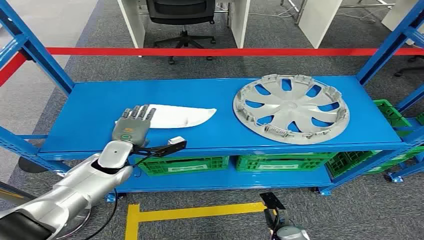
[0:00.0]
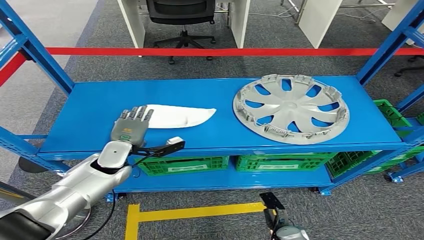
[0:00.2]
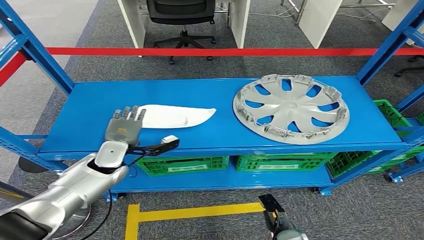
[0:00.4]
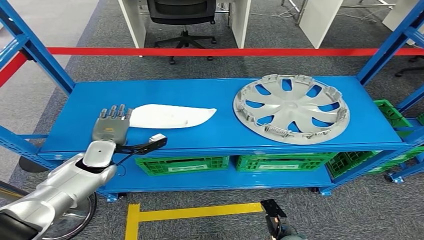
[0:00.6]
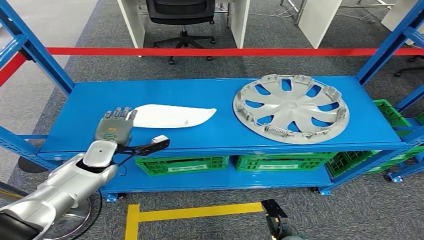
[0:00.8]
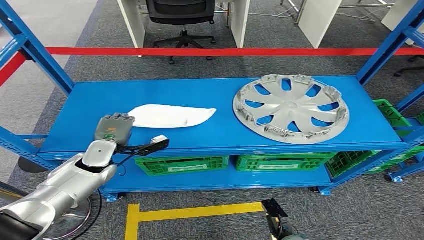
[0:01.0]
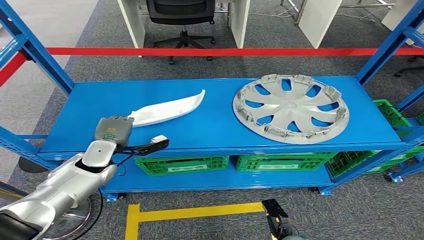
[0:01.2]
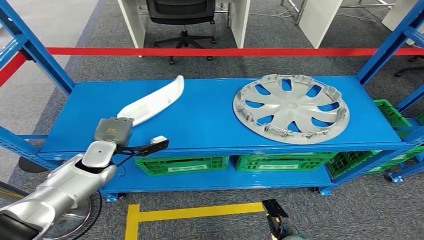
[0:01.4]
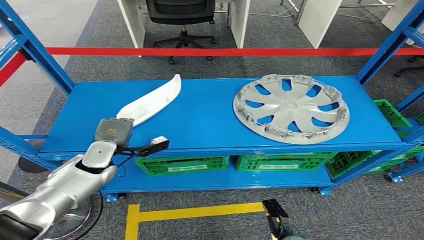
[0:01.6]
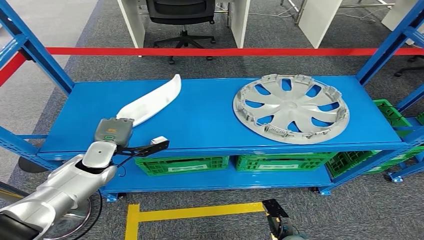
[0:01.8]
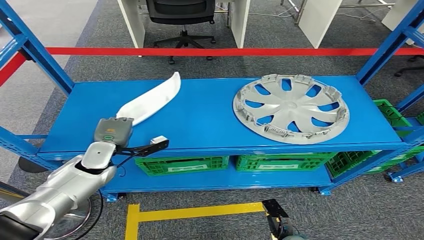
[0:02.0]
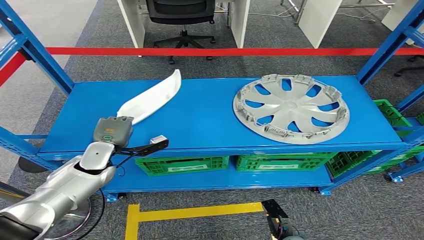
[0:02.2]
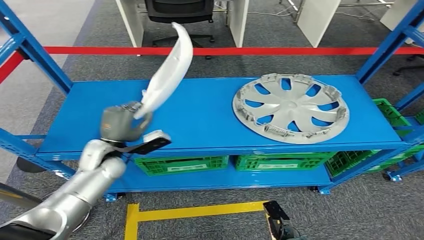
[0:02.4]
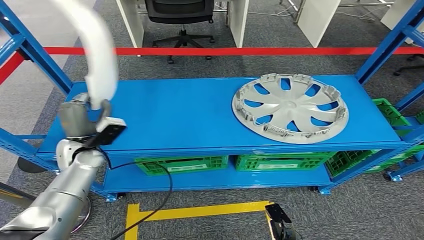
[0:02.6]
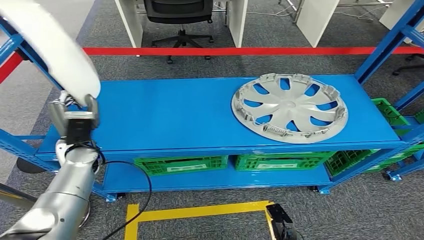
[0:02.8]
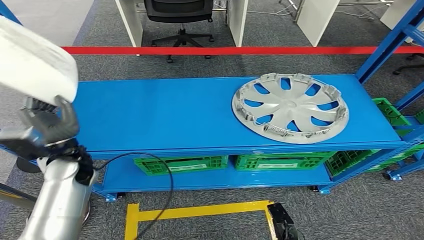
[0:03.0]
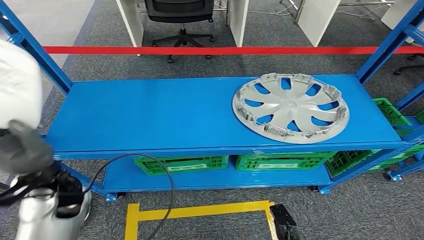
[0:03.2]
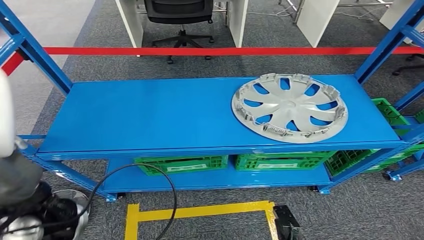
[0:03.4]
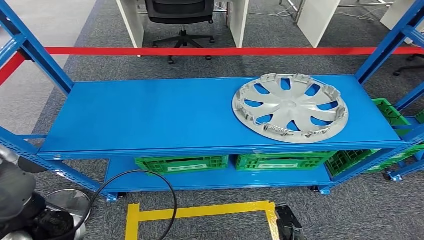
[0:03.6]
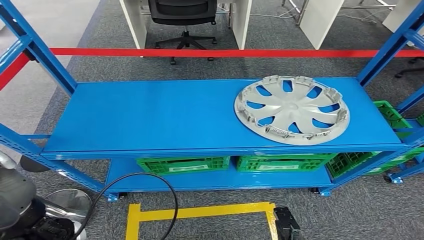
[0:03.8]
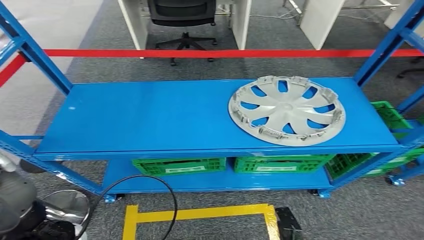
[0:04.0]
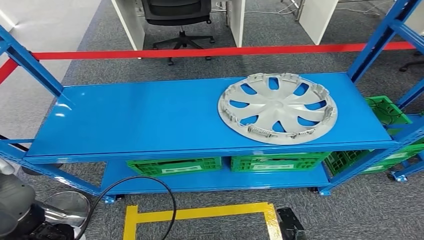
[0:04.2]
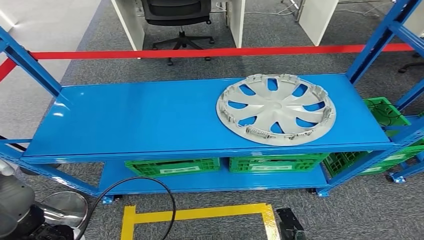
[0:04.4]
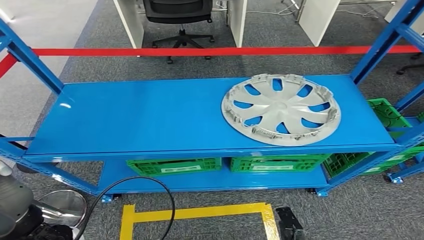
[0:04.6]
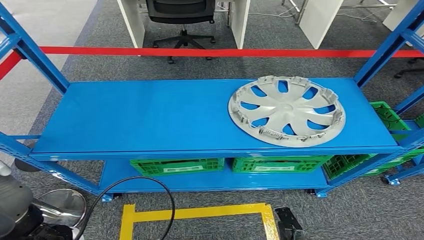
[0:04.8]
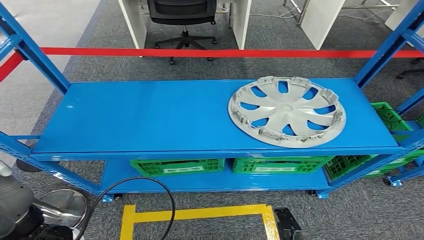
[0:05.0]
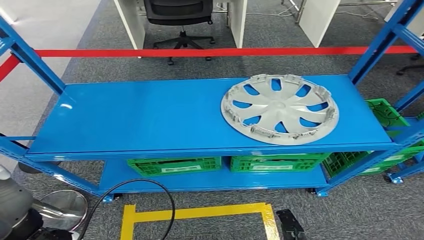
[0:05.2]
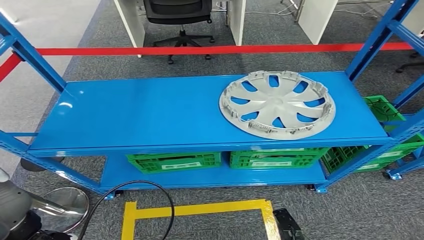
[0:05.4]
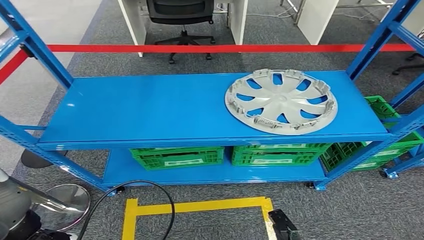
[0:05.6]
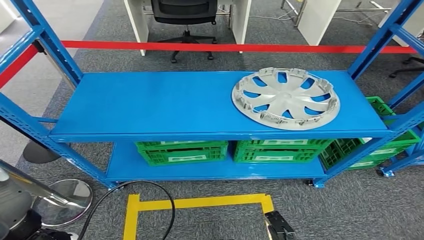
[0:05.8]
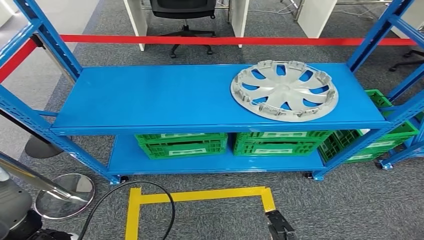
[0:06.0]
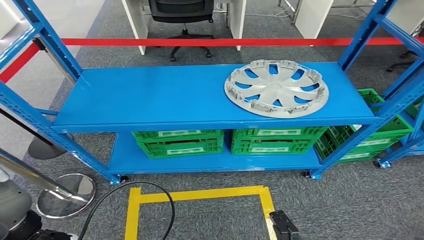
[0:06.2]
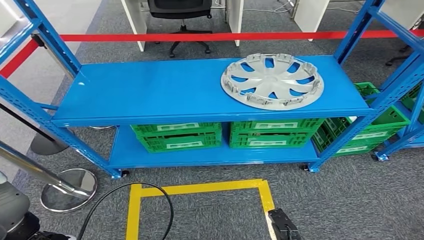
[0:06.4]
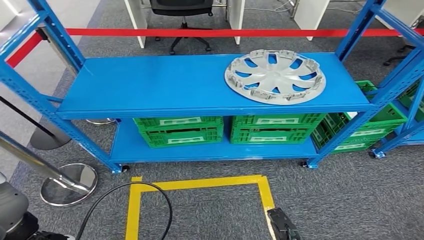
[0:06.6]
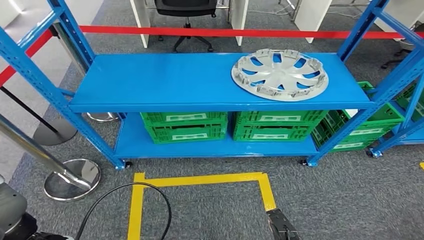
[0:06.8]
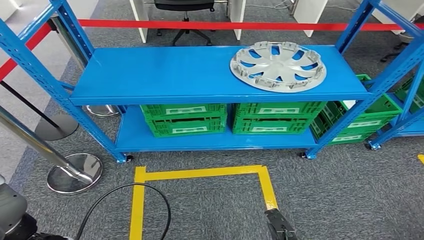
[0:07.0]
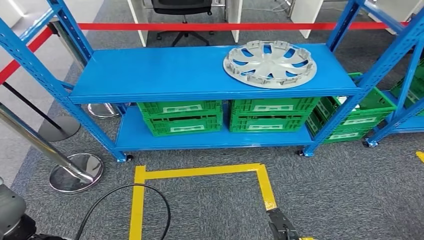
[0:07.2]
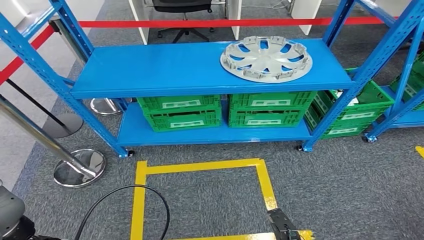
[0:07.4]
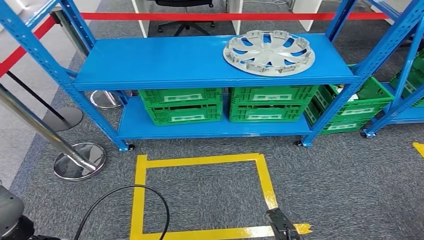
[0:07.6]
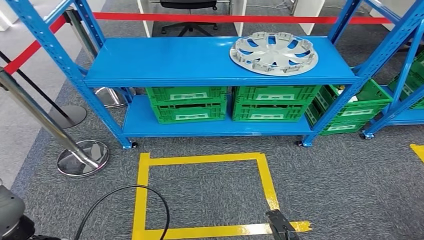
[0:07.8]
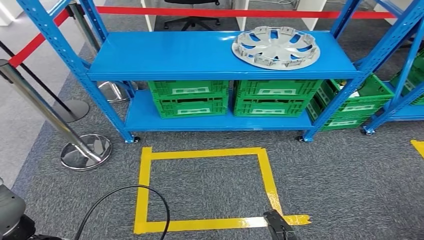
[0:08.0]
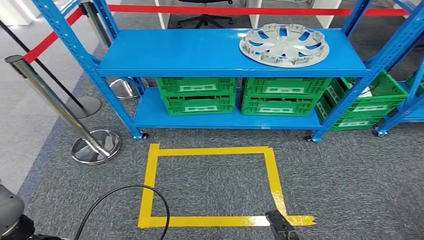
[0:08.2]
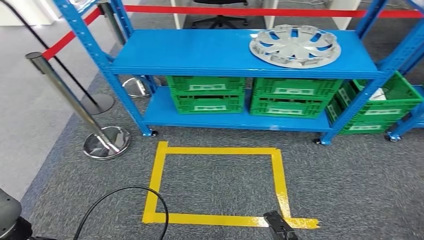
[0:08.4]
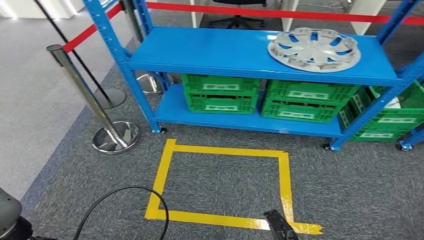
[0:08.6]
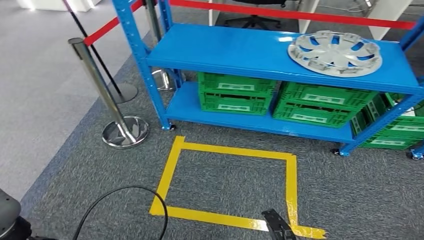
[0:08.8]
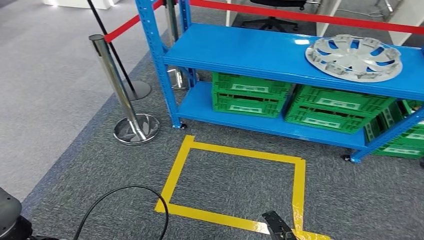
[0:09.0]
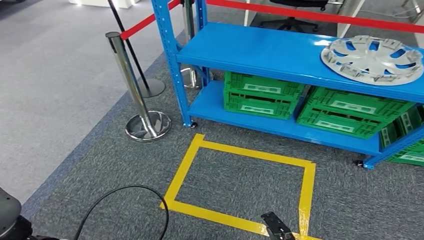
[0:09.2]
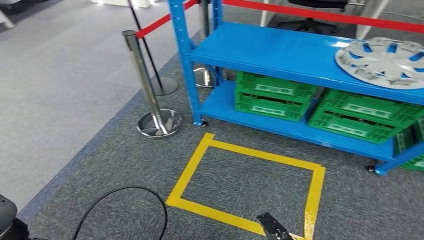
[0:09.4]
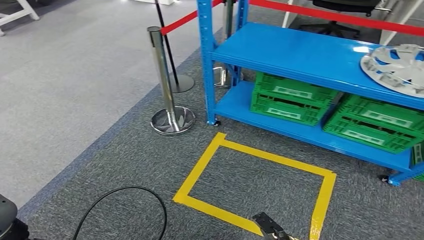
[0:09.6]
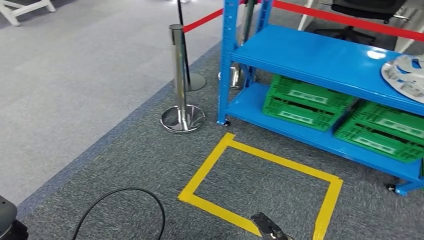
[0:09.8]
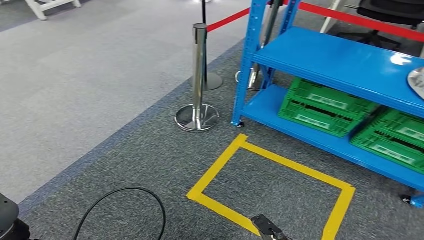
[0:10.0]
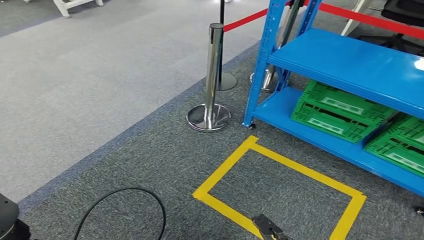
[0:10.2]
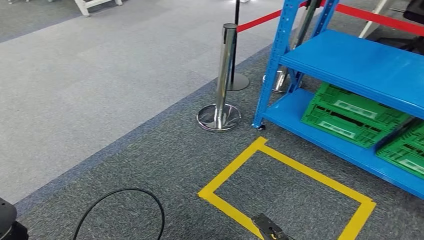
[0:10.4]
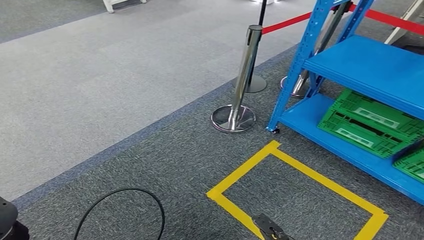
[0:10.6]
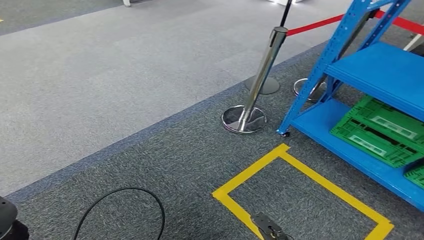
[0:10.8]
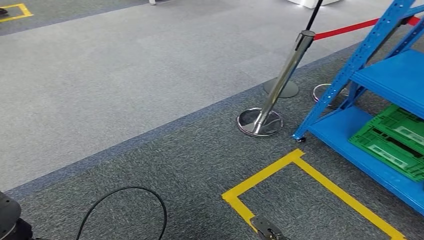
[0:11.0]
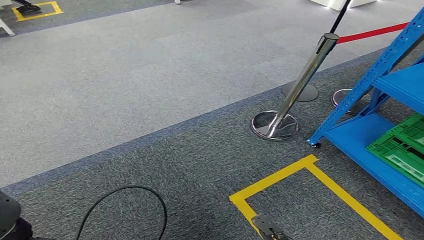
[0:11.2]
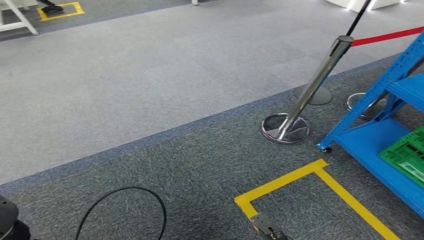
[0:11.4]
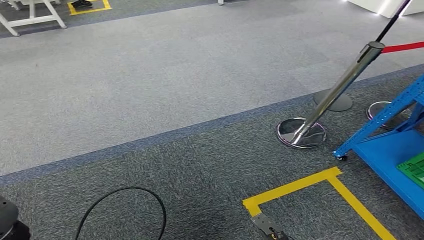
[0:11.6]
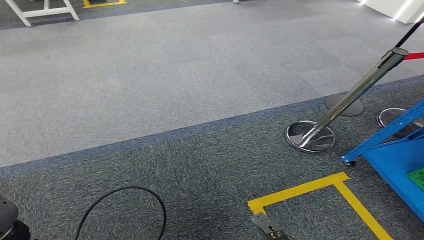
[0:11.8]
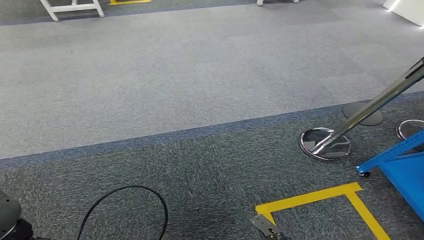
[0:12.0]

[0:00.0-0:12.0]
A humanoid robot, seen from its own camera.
Step, 0:00.0 to 0:03.0: Pick up the small component from the shelf.

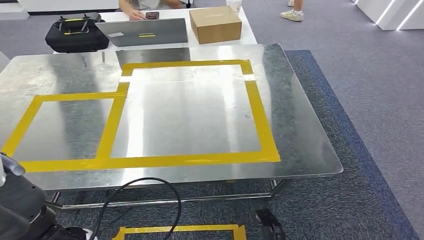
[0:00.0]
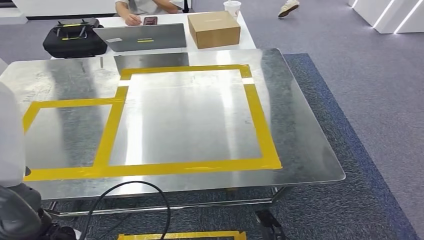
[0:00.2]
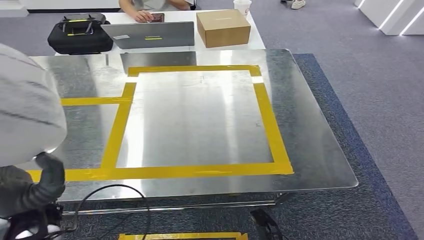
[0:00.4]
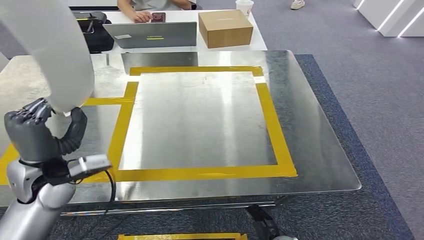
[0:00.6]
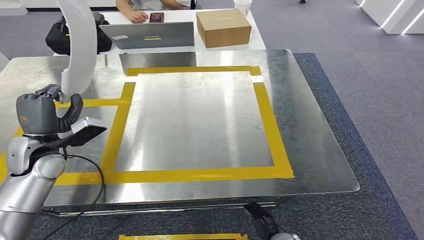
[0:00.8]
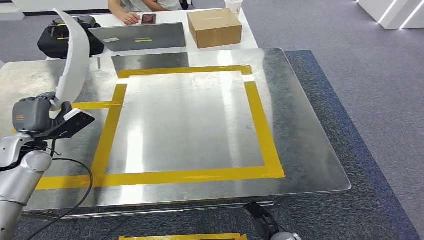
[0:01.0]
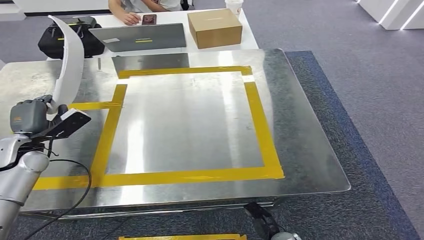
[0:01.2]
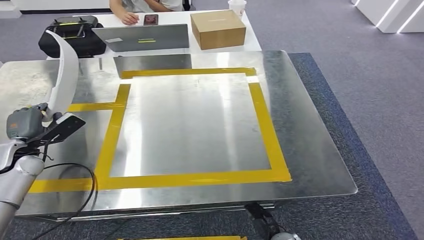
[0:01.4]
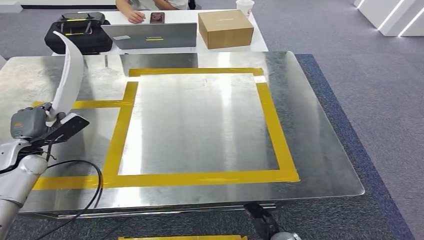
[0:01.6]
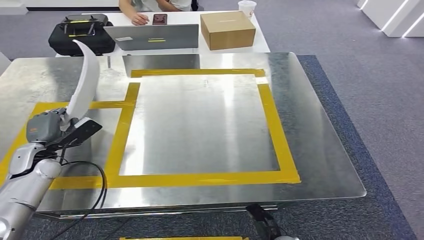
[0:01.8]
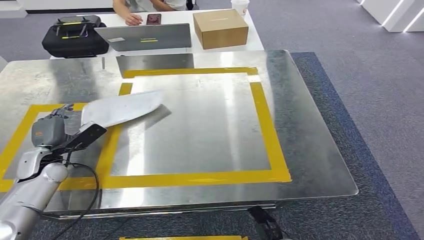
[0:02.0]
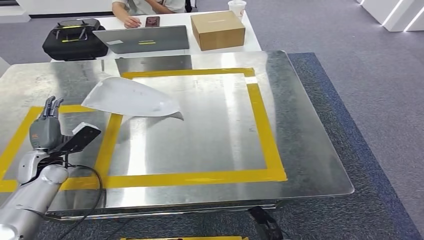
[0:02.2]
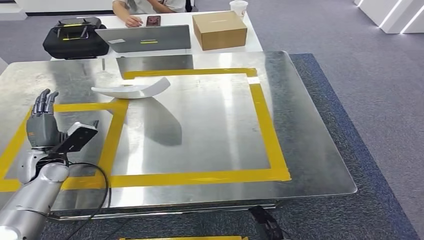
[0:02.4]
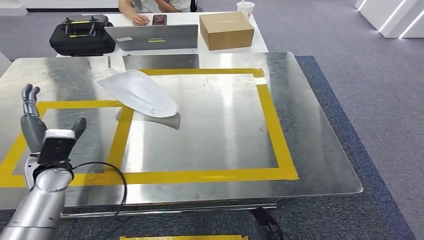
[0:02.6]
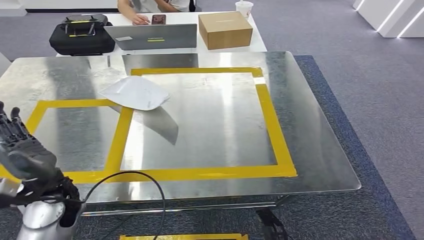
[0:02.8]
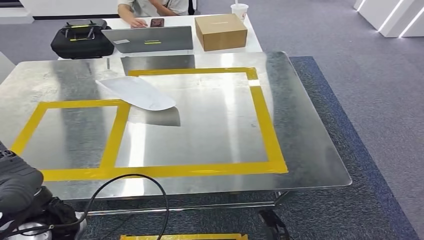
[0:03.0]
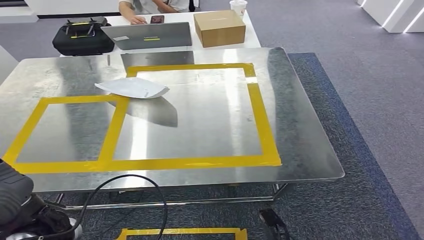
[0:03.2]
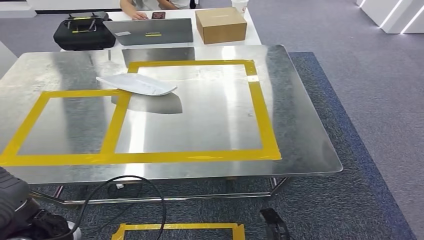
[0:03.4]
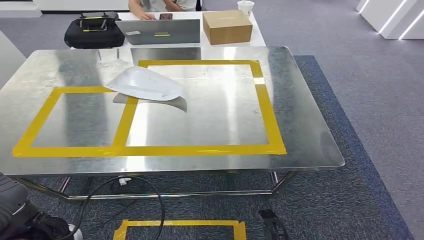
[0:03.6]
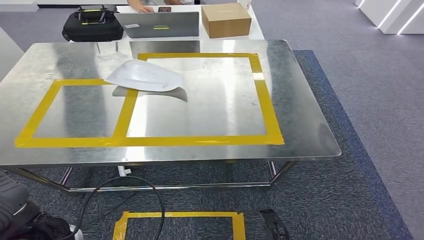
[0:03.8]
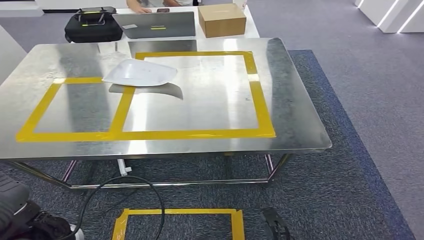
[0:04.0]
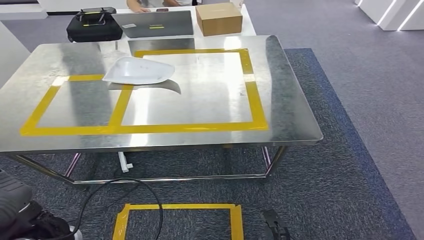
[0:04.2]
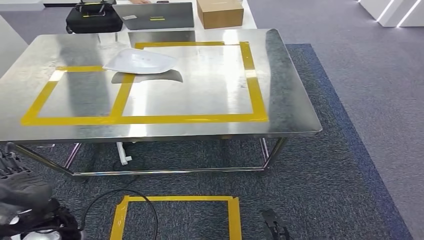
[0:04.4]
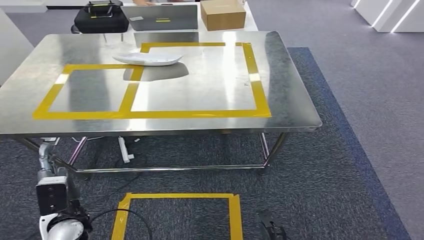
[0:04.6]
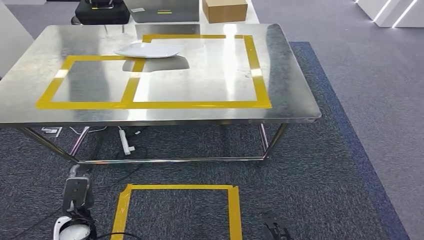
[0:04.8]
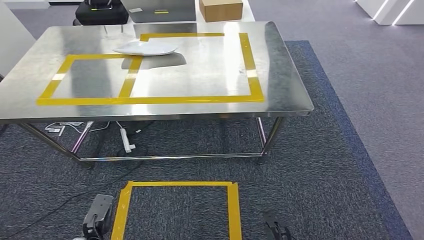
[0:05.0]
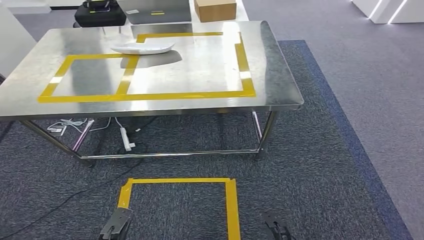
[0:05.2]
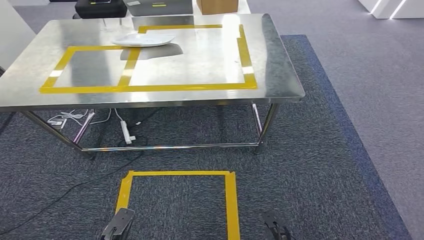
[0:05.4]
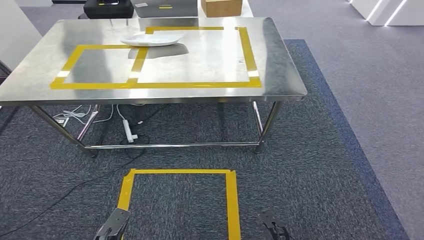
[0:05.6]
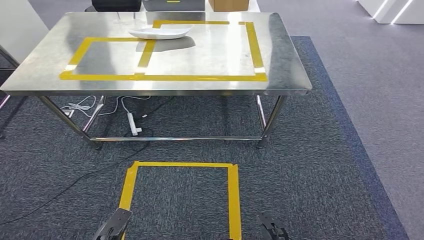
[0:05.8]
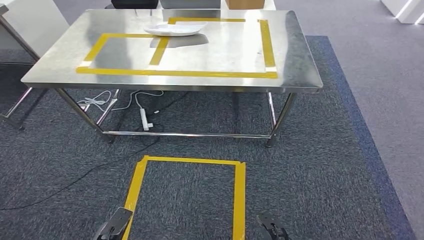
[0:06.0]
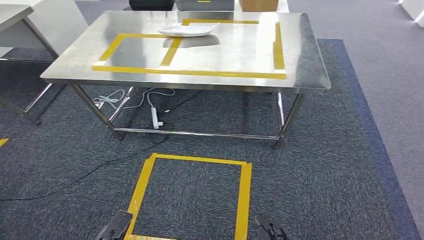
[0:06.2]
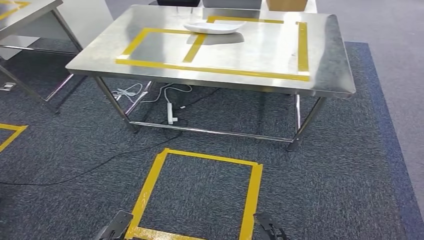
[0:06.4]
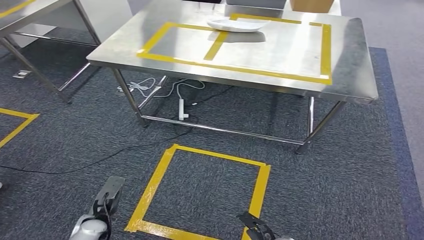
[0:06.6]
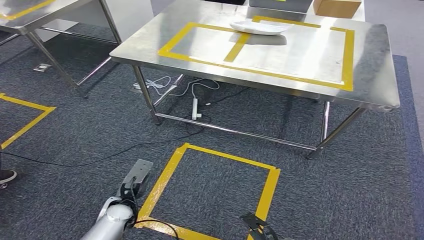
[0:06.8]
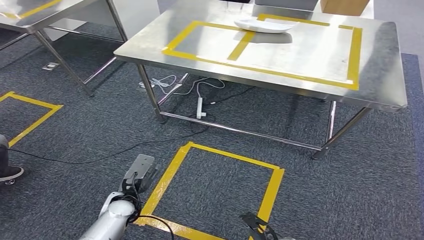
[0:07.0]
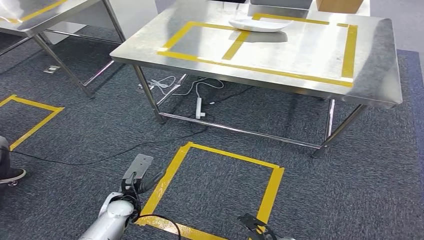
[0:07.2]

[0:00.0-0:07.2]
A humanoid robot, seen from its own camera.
Step, 0:00.0 to 0:02.6: Insert the small component into the corresponding slot on the workbench.
